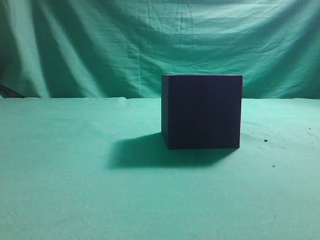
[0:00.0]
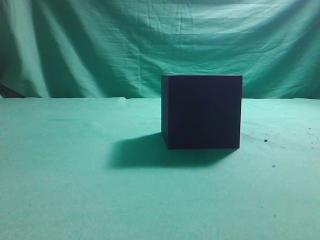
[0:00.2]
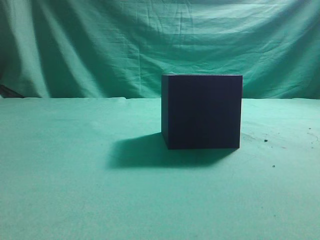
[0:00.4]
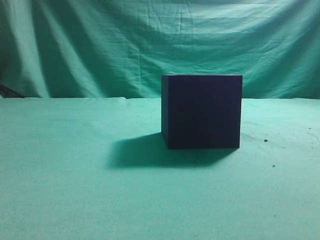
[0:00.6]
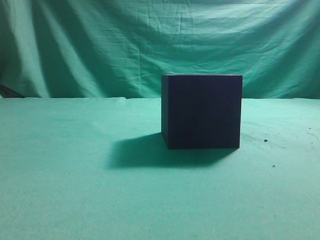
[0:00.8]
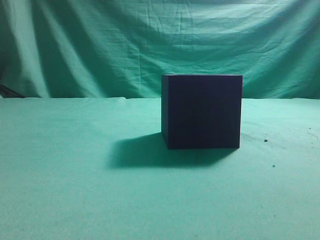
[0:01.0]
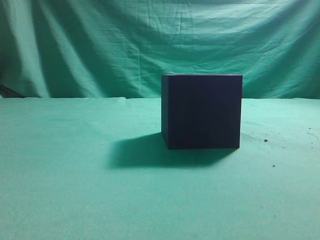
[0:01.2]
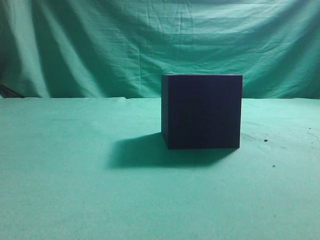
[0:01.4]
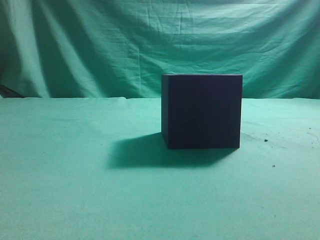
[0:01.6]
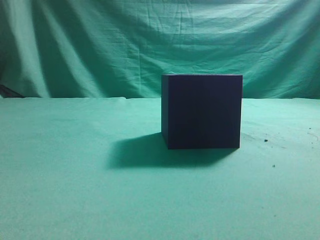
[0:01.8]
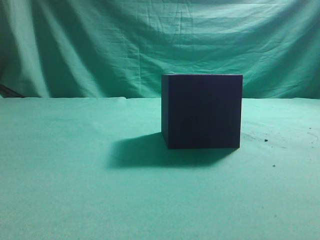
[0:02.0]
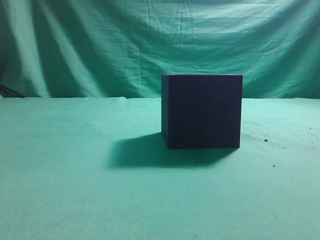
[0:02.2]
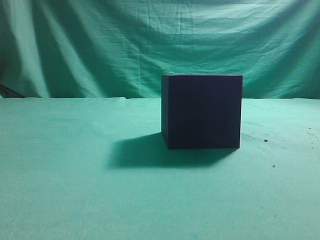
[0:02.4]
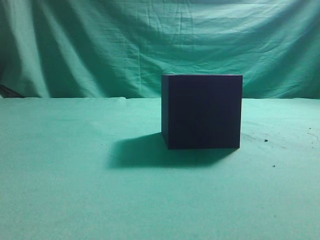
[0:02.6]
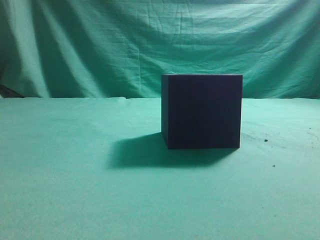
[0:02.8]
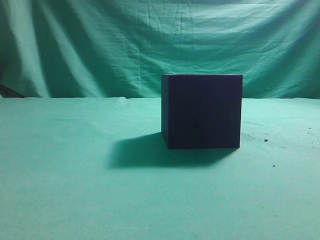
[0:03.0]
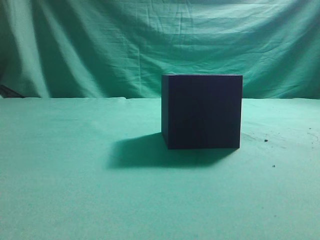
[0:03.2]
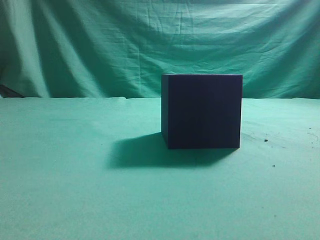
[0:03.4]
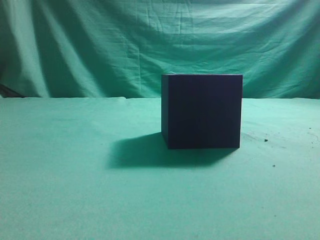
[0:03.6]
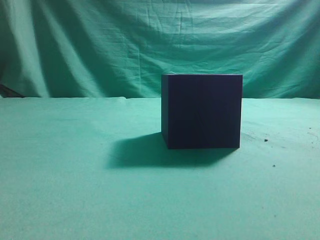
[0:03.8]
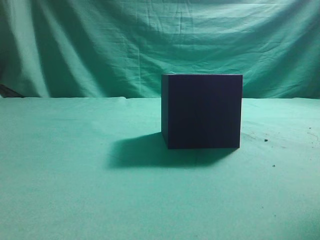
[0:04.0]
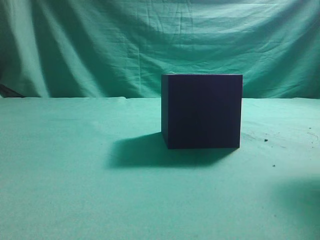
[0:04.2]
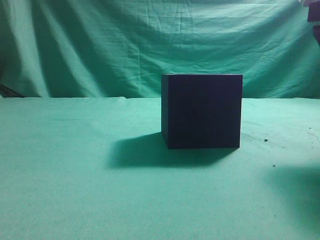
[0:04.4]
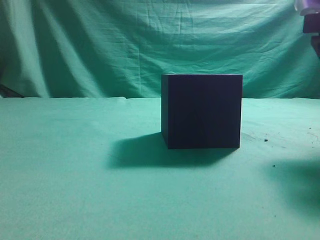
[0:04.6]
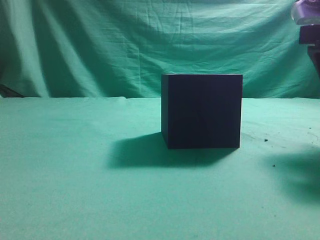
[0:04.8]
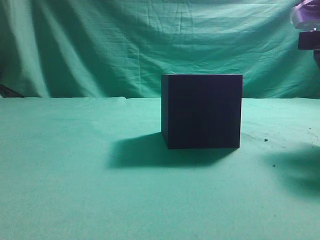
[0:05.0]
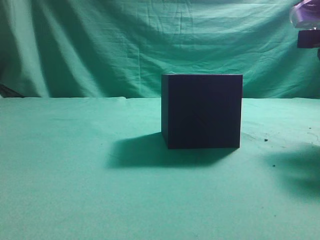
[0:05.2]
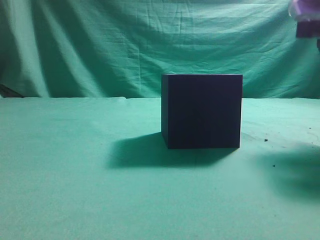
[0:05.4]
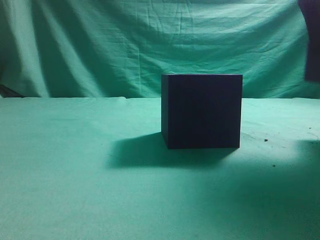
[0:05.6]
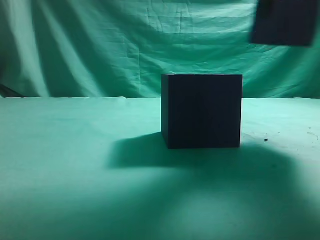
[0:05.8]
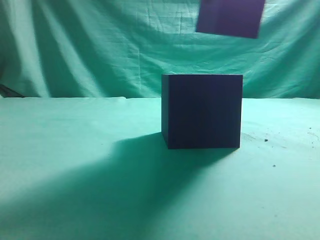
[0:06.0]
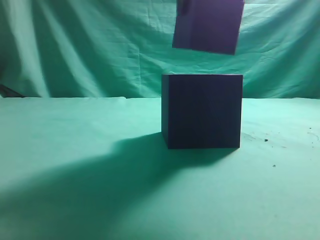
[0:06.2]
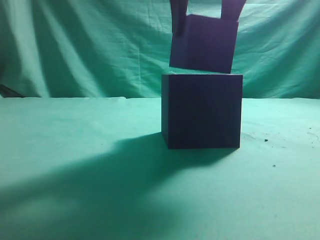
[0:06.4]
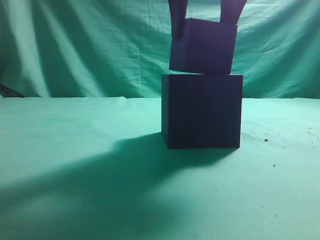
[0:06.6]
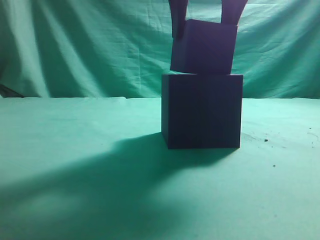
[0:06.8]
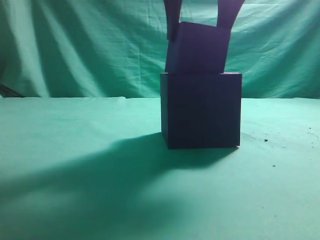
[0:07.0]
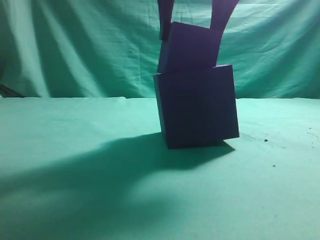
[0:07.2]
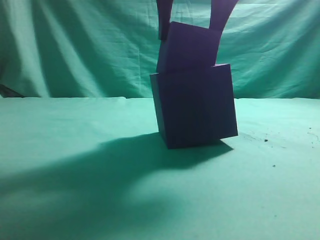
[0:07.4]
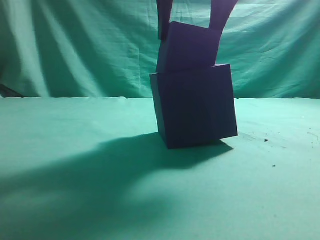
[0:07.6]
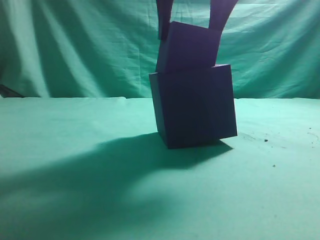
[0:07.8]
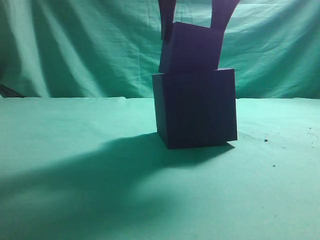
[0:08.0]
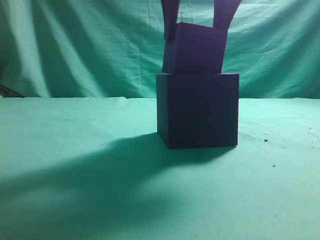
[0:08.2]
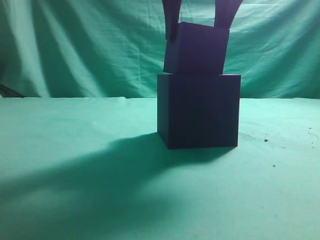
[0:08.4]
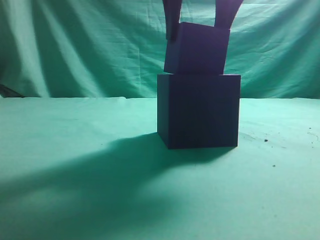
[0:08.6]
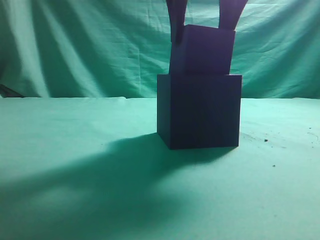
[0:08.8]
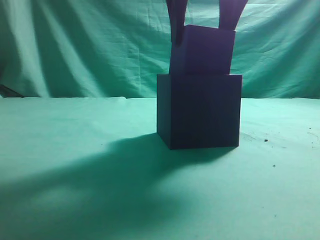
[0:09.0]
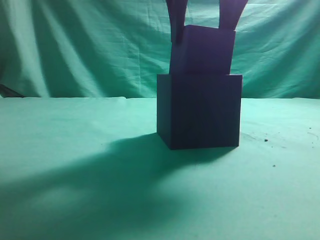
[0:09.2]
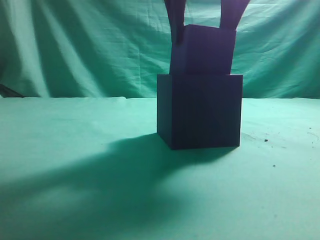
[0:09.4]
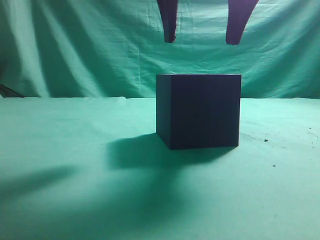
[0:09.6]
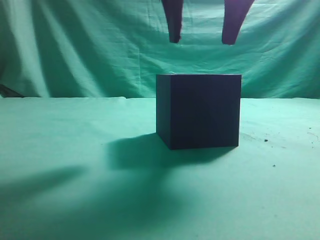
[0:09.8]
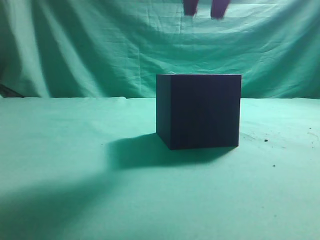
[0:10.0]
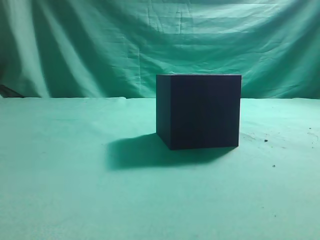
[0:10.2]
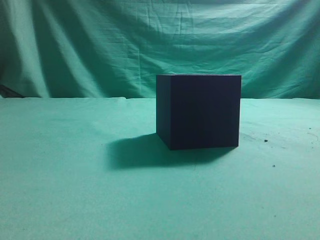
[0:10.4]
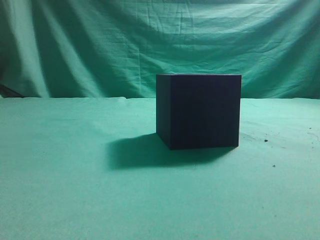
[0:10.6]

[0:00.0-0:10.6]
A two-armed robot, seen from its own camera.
Task of the whole recording: pick up the cube block and place it into the cube groove.
Step, 0:00.0 to 0:05.4: Grasp the cube.
Step, 0:05.8 to 0:09.4: Place cube into the cube-shaped recess.
0:03.0 to 0:04.6: The right gripper moves forward and downward, roughly 20 cm, and opens up.
0:04.6 to 0:06.0: The right gripper is displaced to the left and upward by about 15 cm.
0:06.0 to 0:07.6: The right gripper moves to the left, some 5 cm.
0:07.6 to 0:09.0: The grippers make only small movements.
0:09.0 to 0:10.6: The right gripper is displaced upward, backward and to the right by about 20 cm, and closes up.

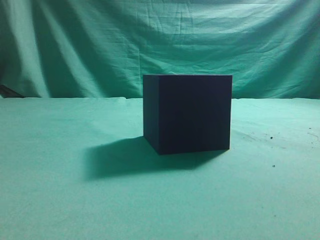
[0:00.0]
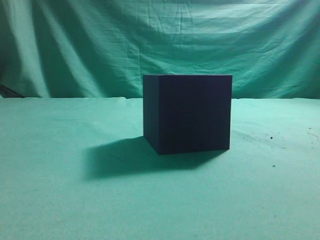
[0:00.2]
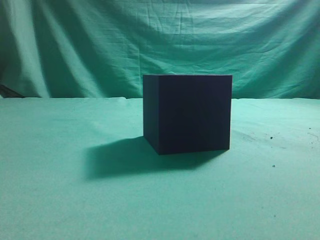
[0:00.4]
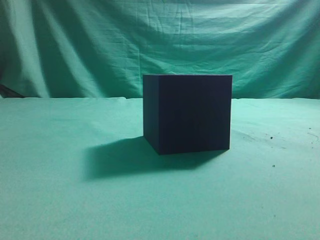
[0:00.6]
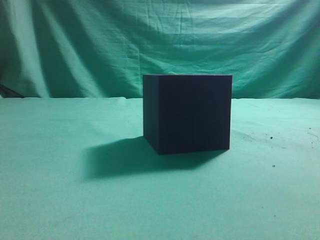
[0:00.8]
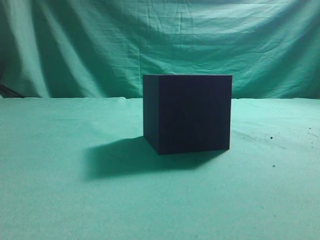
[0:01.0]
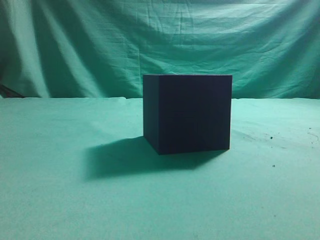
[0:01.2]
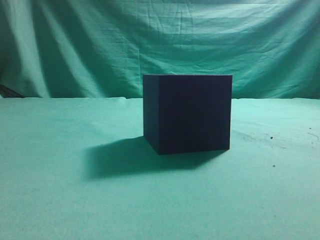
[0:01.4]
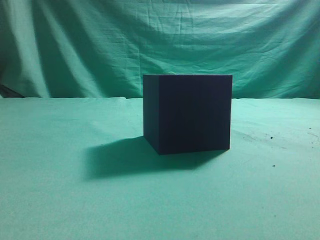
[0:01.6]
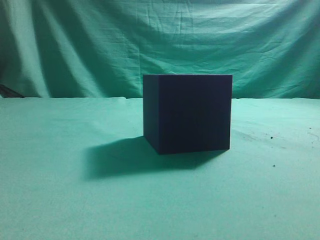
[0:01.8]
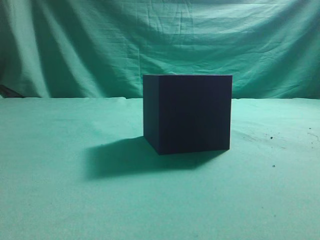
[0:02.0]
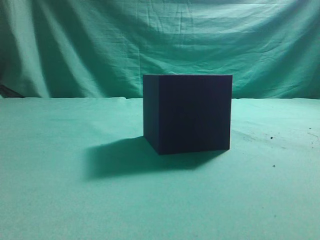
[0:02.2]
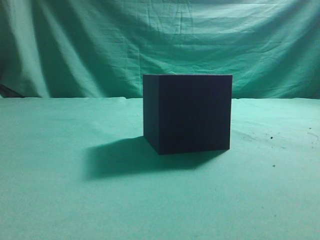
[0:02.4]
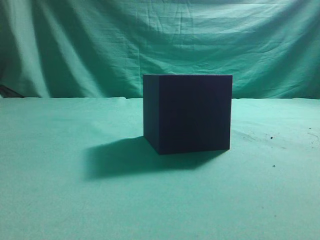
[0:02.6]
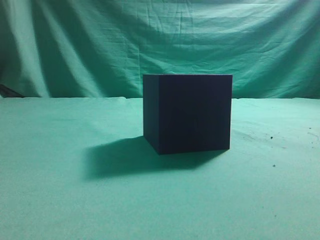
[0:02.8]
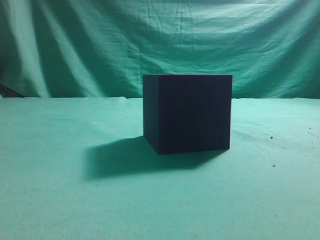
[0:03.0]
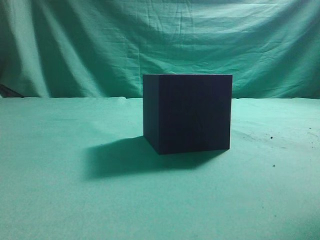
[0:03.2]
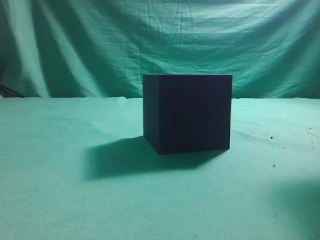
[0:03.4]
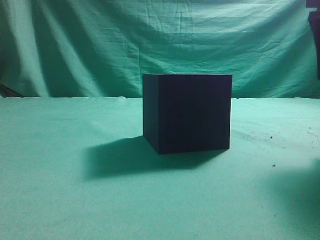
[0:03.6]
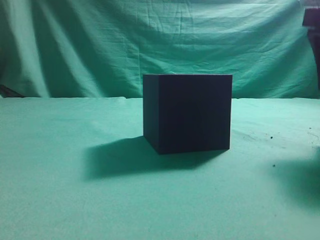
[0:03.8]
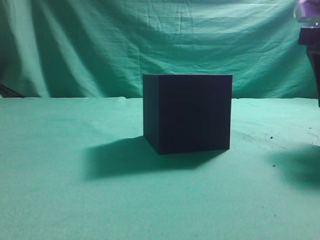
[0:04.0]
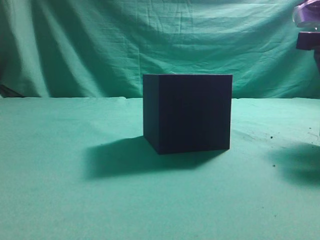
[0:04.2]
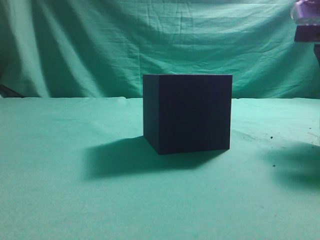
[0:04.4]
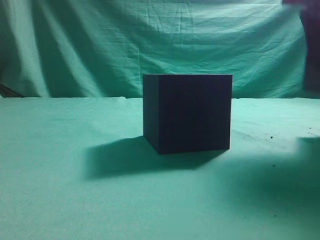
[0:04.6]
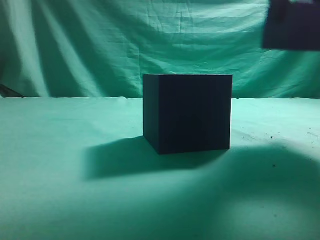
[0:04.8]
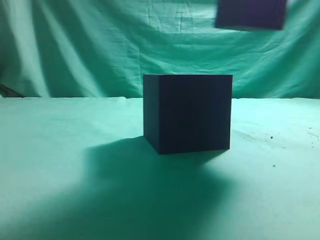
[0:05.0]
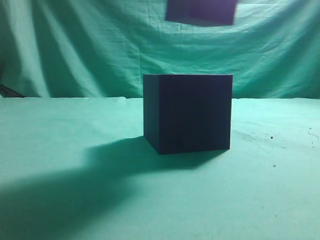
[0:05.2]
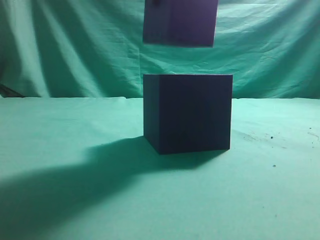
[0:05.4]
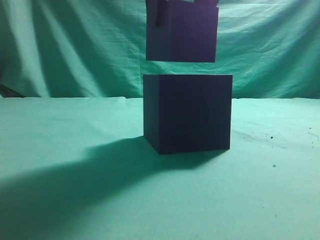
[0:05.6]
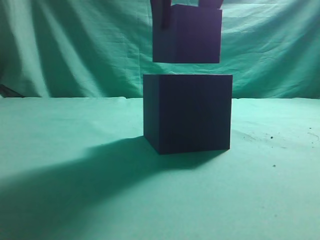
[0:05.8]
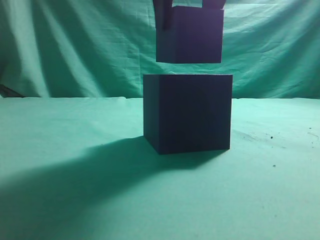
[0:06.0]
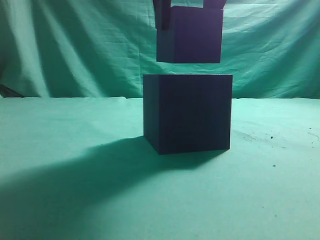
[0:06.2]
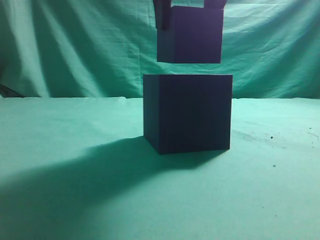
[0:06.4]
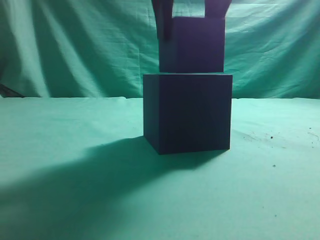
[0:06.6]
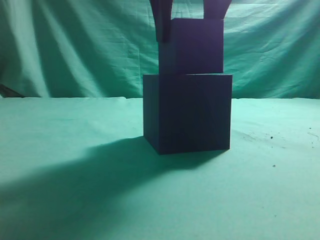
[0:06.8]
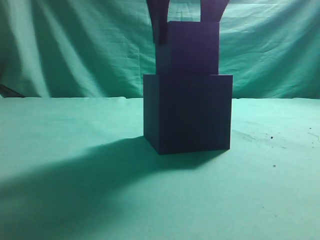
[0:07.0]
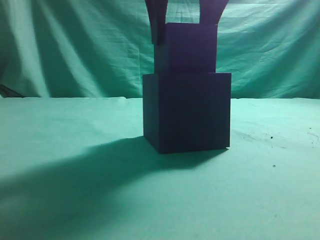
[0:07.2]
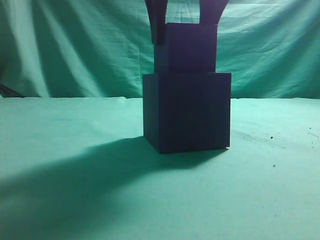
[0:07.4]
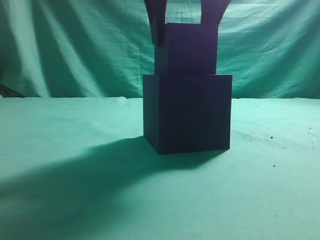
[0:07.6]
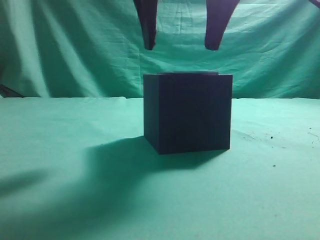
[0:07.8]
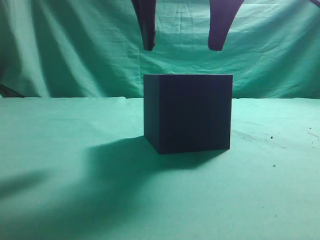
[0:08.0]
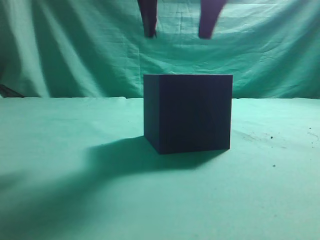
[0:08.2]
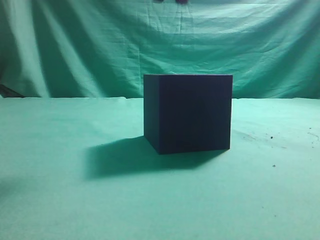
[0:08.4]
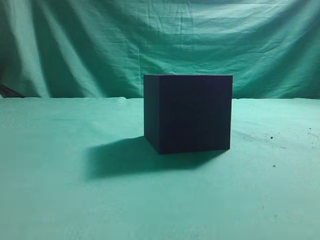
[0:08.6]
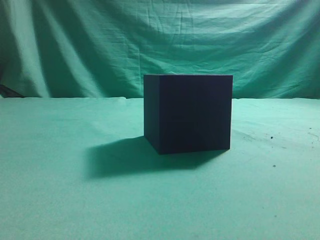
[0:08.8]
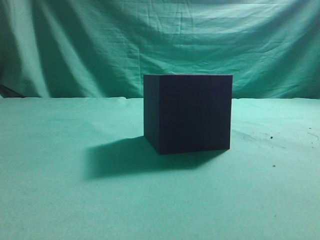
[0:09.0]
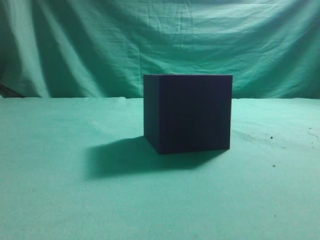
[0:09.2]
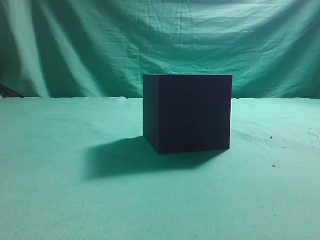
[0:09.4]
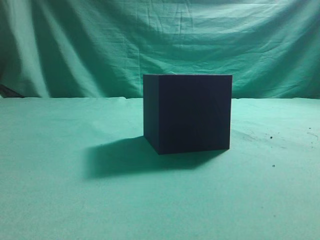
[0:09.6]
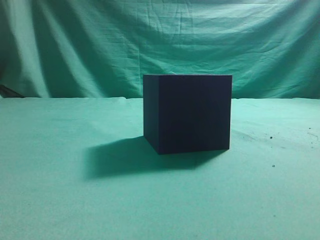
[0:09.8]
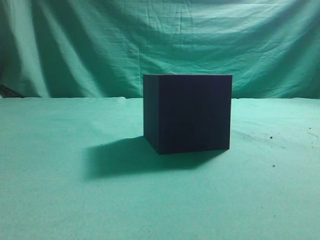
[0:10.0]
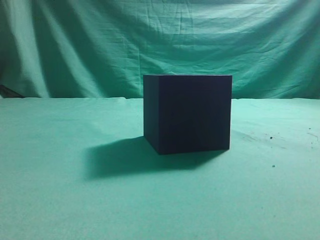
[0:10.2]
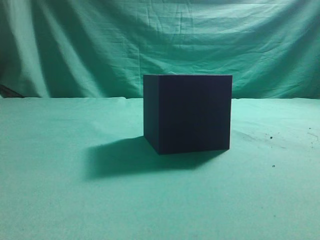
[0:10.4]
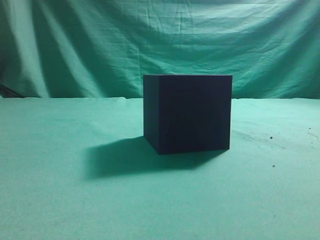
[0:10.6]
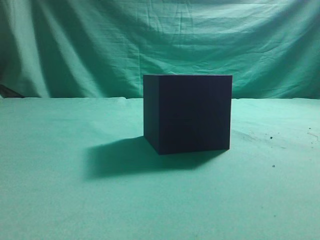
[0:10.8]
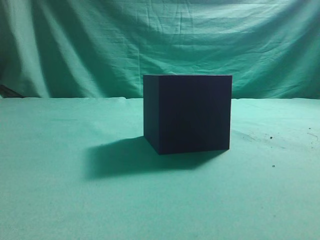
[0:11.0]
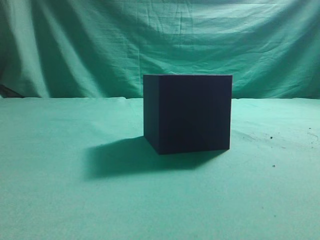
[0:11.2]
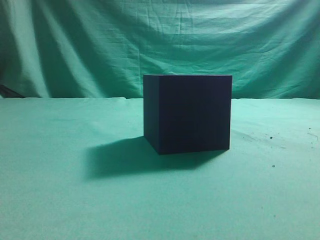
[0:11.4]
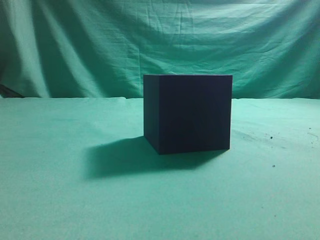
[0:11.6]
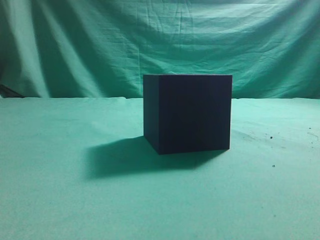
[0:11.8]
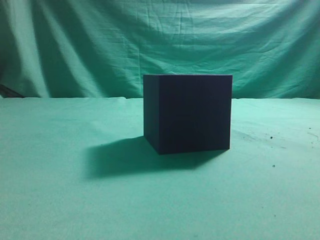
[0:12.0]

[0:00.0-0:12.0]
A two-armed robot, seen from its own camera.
Task of the whole recording: pick up the cube block and place it into the cube groove.
Step, 0:00.0 to 0:04.4: Grasp the cube.
Step, 0:04.6 to 0:08.0: Place cube into the cube-shaped recess.
0:03.0 to 0:04.4: The right gripper goes some 10 cm forward and downward, and opens.
0:04.4 to 0:06.0: The right gripper moves to the left and upward, approximately 20 cm.
0:06.0 to 0:07.6: The grippers move only a little.
0:07.6 to 0:09.0: The right gripper travels upward, to the right and backward by about 20 cm, and closes.
